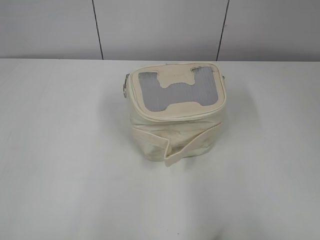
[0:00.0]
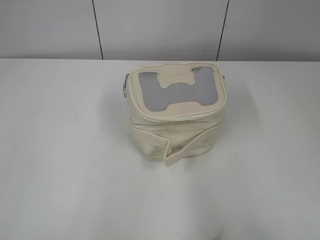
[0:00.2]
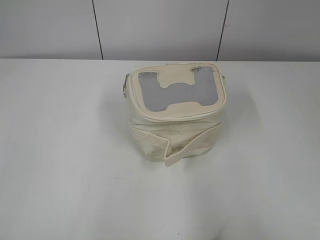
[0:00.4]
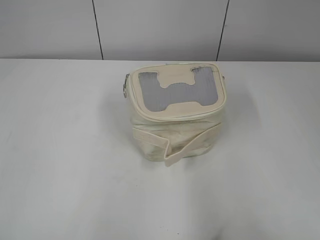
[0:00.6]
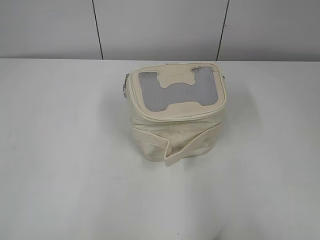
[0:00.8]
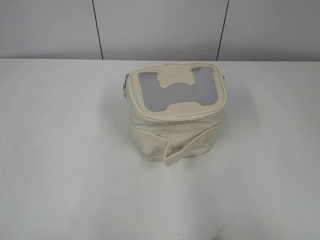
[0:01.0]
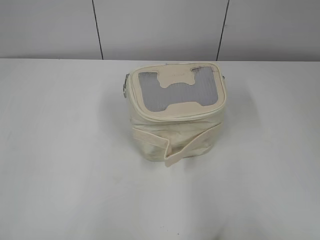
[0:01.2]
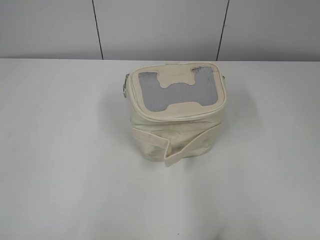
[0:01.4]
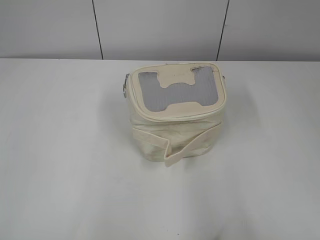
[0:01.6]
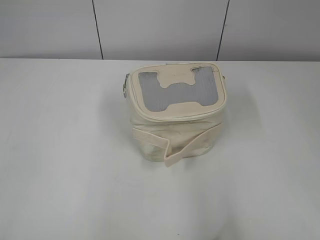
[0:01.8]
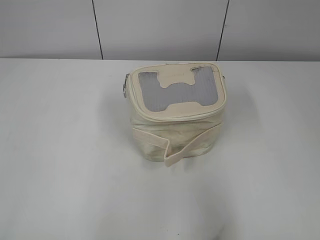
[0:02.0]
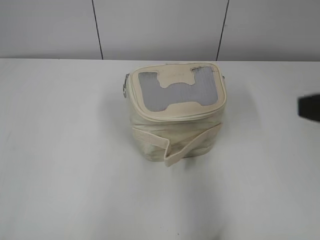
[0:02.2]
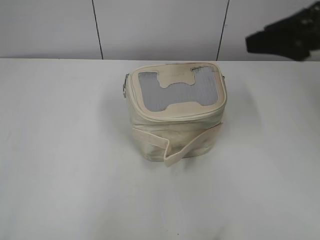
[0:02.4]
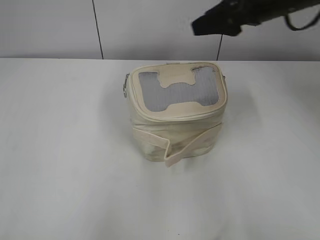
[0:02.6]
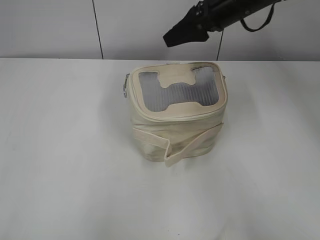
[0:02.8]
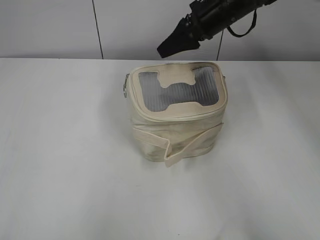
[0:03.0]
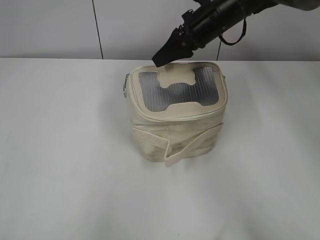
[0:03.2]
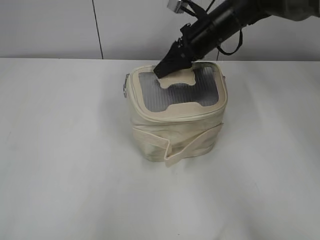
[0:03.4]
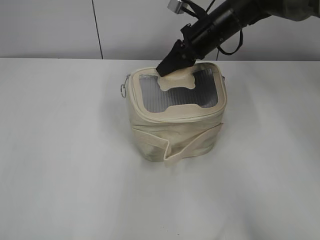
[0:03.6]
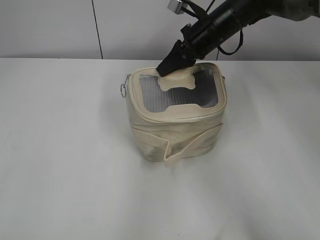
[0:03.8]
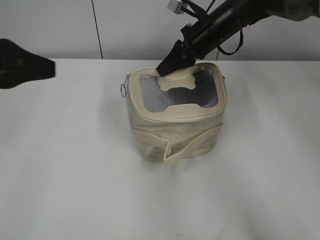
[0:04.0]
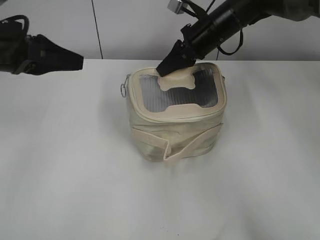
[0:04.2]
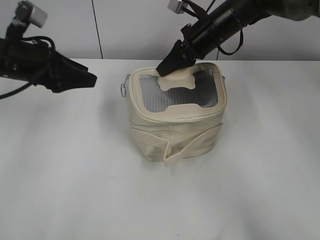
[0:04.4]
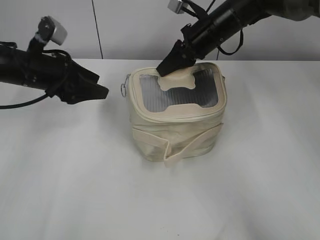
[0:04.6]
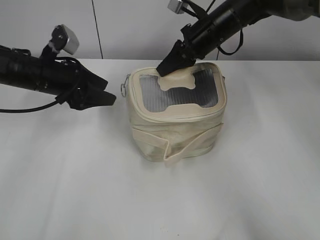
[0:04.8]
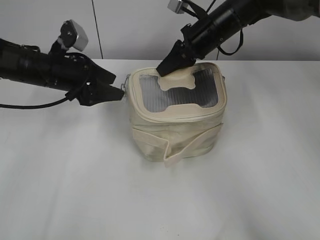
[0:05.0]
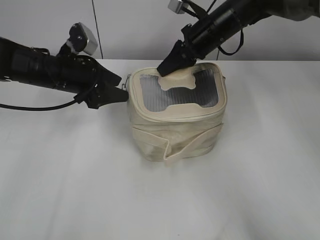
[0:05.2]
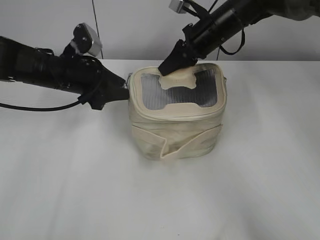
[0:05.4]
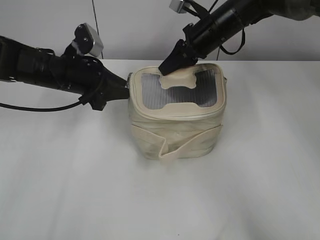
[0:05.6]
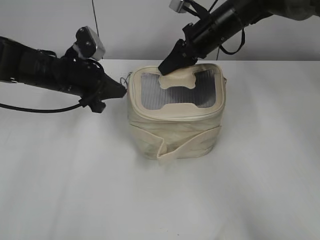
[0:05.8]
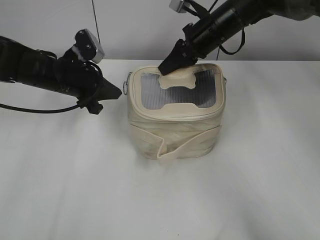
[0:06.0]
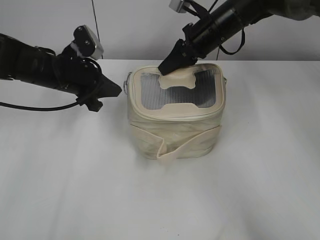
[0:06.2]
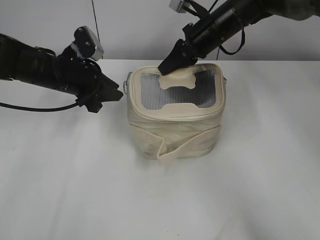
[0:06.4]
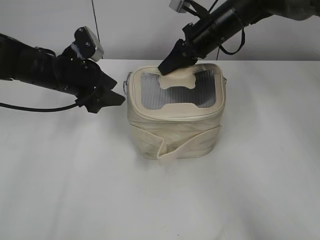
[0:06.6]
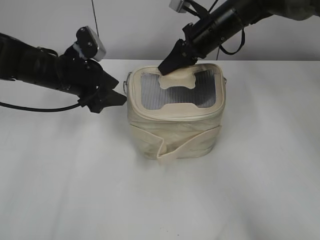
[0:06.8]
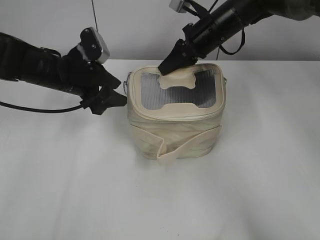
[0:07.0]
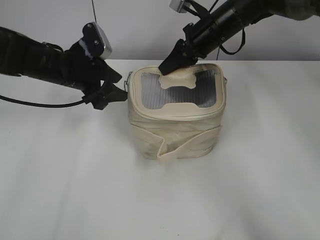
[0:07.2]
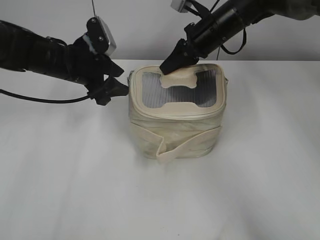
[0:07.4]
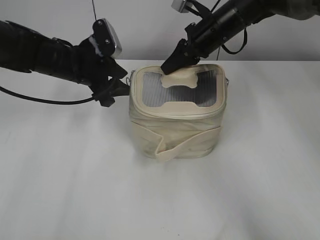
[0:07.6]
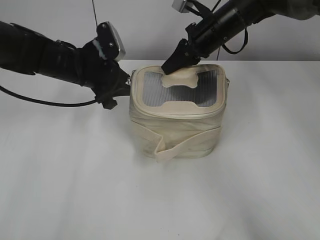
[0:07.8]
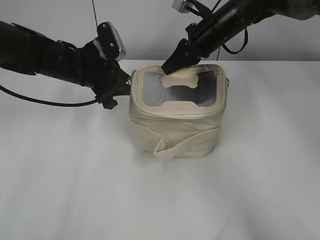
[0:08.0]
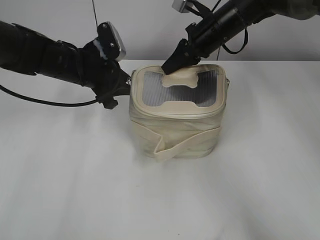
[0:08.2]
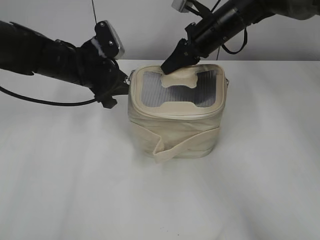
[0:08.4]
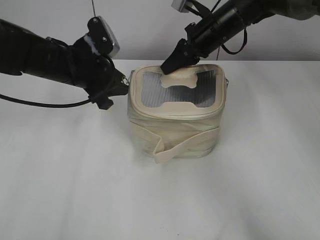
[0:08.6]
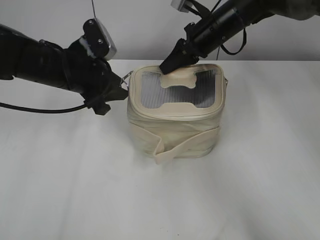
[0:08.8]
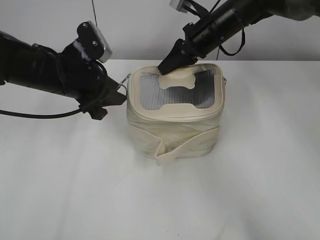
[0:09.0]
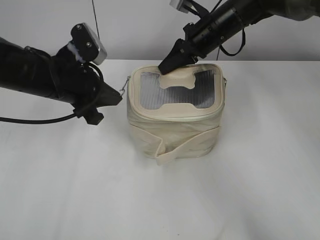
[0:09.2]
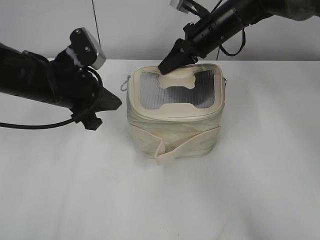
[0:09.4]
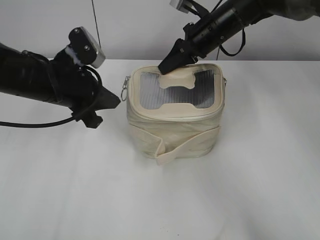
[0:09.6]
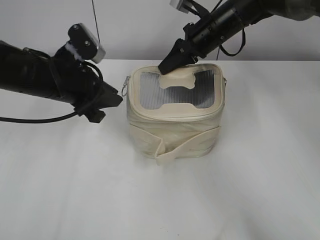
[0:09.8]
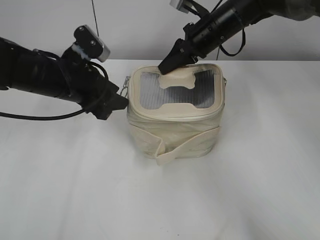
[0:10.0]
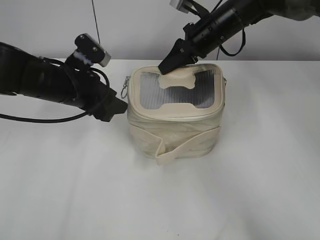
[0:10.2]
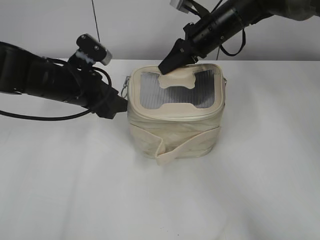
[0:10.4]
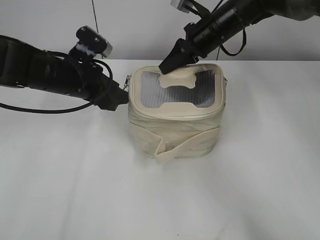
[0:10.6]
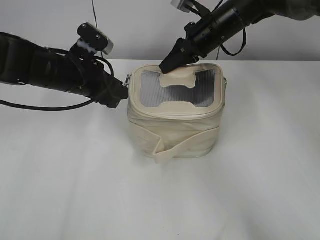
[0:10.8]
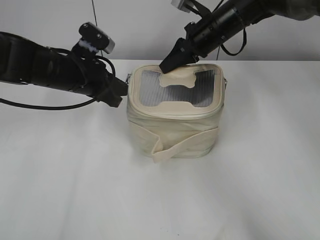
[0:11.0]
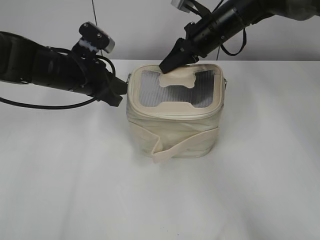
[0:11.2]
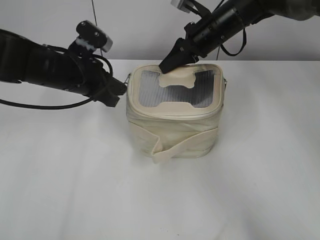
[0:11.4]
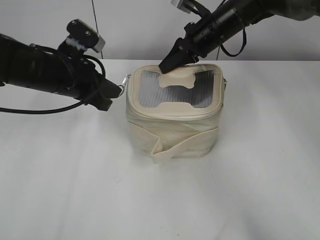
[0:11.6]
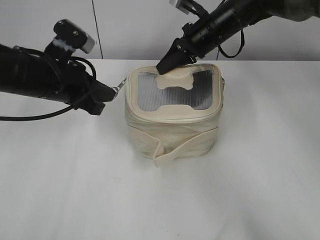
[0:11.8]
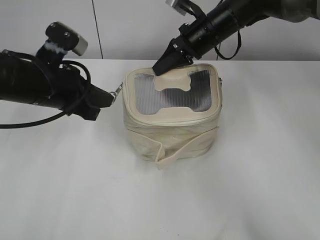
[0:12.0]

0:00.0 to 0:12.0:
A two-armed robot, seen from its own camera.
0:01.6 to 0:03.0: The right gripper travels forward and to the left by about 50 cm.
0:03.0 to 0:04.4: The right gripper shifts approximately 5 cm downward, and closes, while the left gripper heads forward, covering approximately 35 cm.
0:04.4 to 0:06.0: The left gripper shifts approximately 10 cm downward and to the right, and closes.
0:06.0 to 0:07.6: The left gripper opens its fingers.
0:07.6 to 0:09.0: The left gripper shifts about 5 cm backward.
0:09.0 to 0:10.4: The left gripper closes, then opens again.
0:10.4 to 0:12.0: The left gripper moves roughly 5 cm, and closes up.

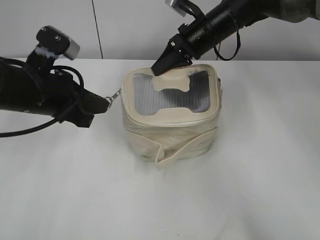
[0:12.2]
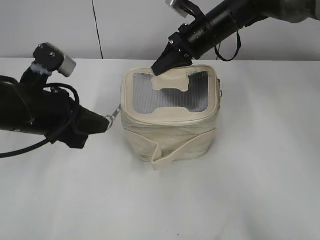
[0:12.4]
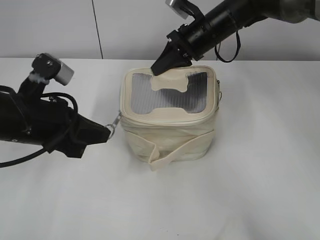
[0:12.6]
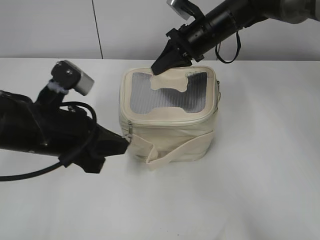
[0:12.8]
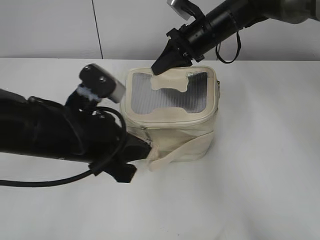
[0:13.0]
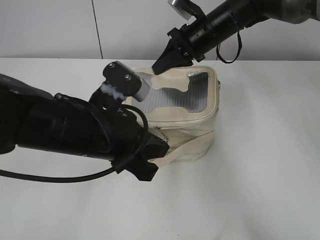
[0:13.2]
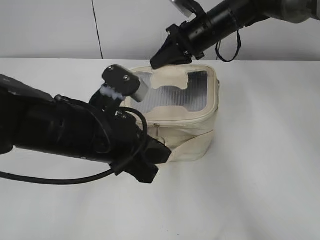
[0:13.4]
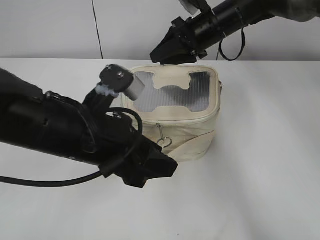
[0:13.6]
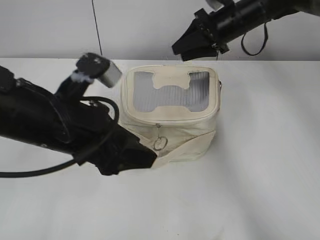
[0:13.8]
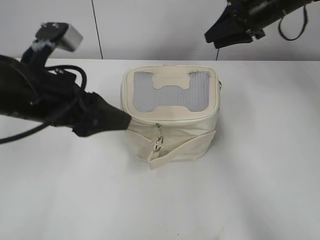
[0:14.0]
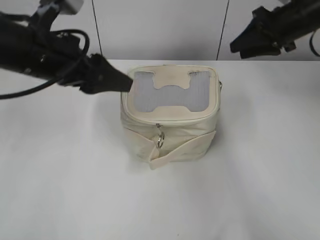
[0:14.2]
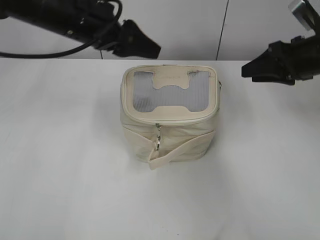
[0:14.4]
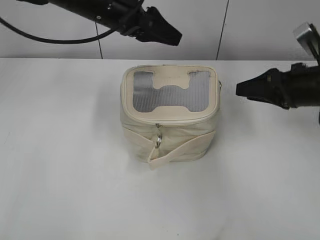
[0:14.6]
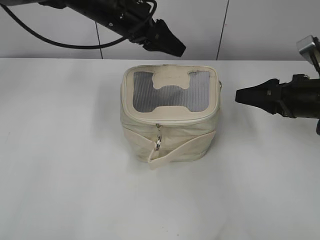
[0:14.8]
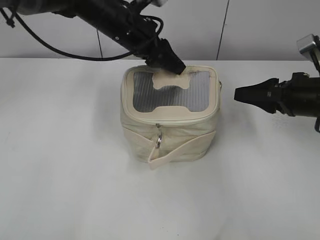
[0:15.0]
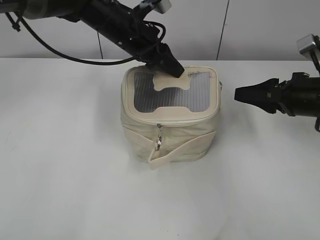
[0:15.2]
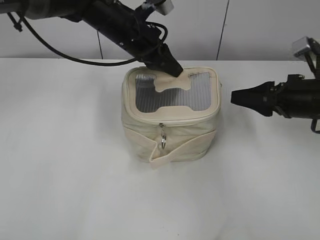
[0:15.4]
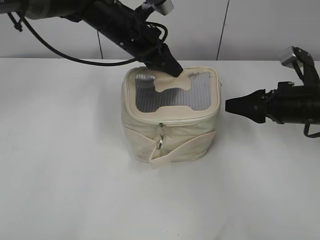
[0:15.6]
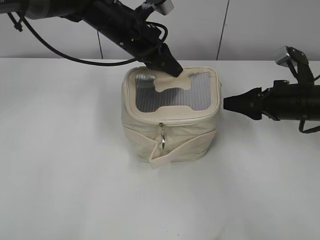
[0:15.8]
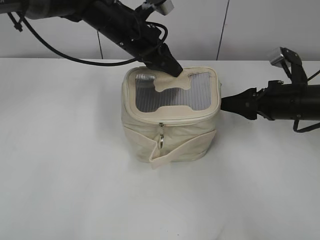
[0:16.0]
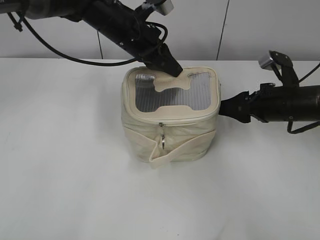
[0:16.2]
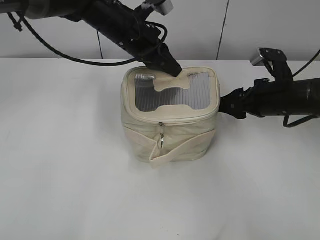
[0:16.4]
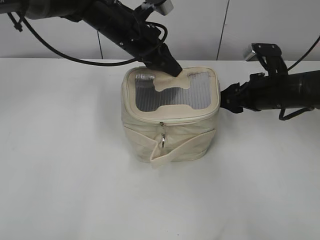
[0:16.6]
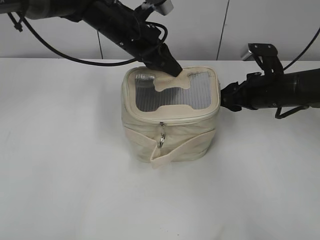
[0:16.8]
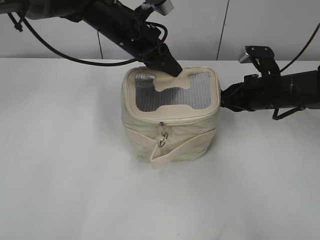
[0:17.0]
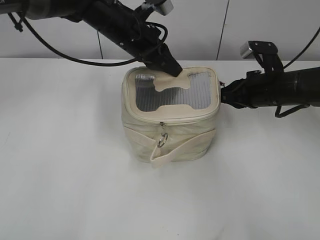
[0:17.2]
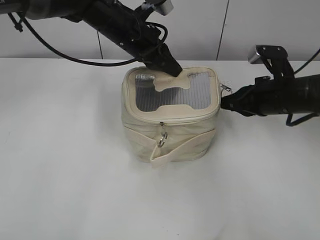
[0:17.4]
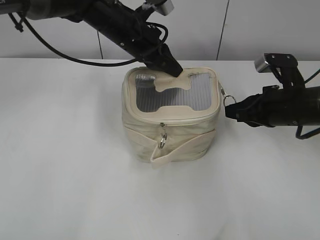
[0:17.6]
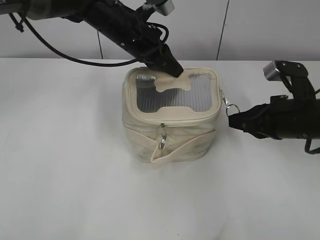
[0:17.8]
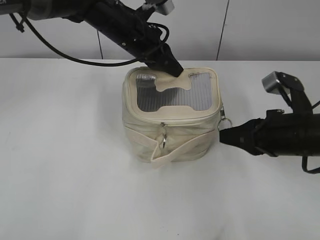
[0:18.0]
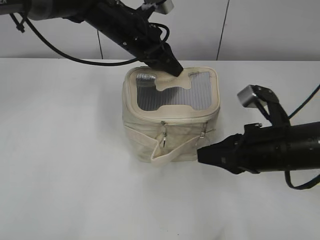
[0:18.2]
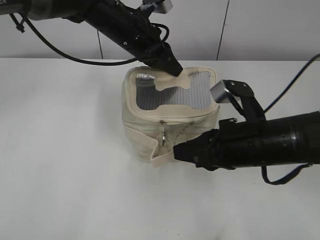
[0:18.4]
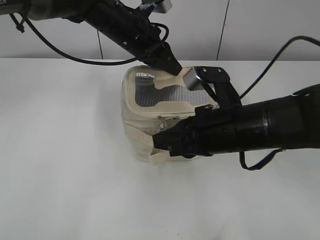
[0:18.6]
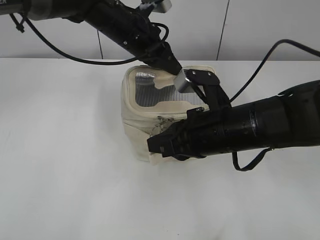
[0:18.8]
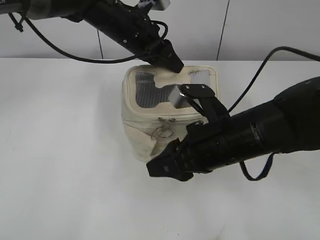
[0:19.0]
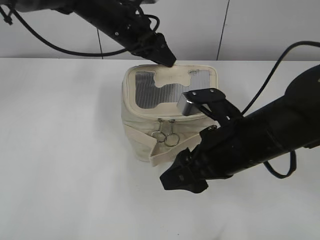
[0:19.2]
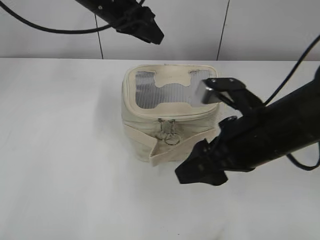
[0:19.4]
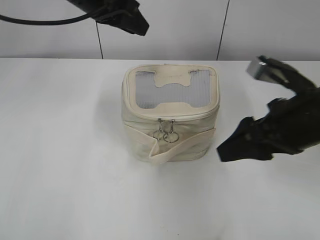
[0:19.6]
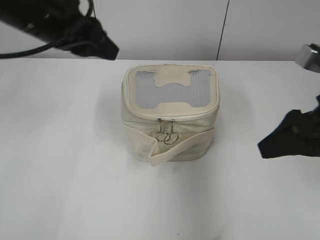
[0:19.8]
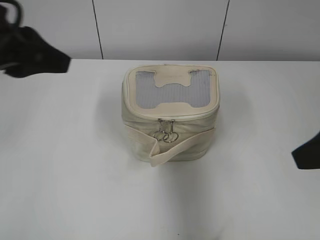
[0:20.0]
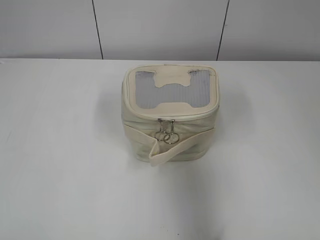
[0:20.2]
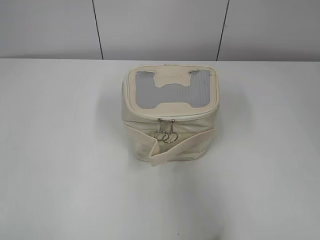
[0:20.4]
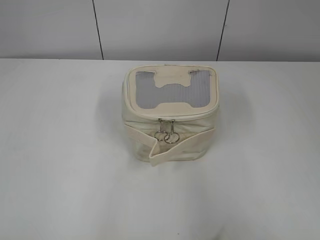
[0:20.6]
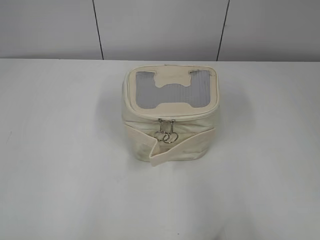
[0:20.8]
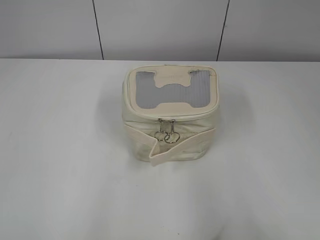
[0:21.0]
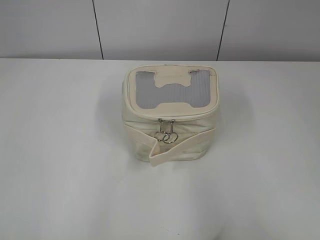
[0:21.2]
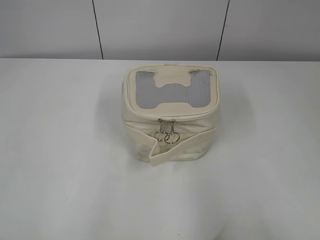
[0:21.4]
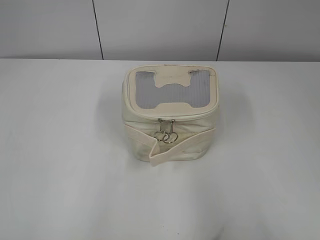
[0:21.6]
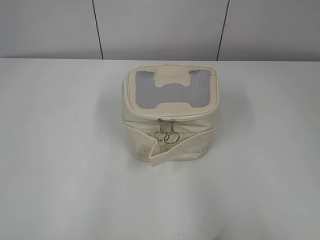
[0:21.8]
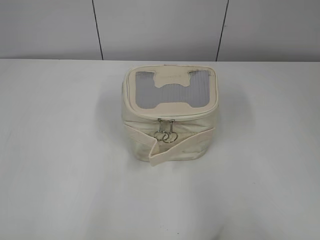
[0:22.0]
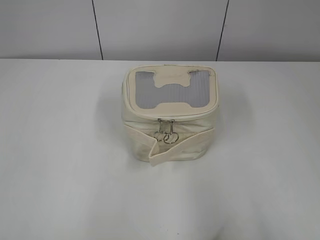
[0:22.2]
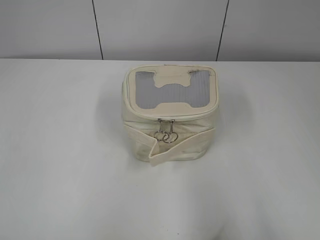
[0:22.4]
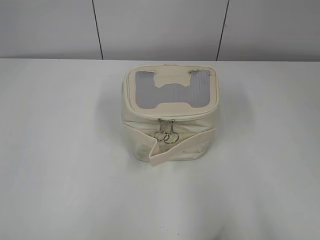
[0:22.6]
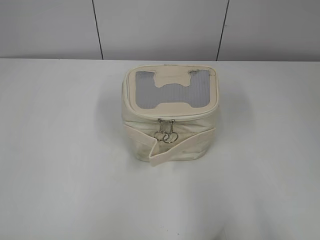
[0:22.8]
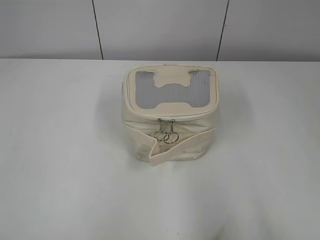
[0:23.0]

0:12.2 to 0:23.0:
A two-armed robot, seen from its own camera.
Step, 0:13.8 to 0:18.8: Zip up the bag with your right hand.
Step, 0:19.0 to 0:19.2: Hold the bag with your left hand.
0:12.2 to 0:13.8: The right gripper opens up. Meanwhile the left gripper is displaced backward and to the right by some 10 cm, and opens its fingers.
0:13.8 to 0:15.2: The left gripper travels forward by about 25 cm. Meanwhile the right gripper moves backward and to the right, approximately 20 cm.
0:15.2 to 0:16.8: The left gripper closes its fingers. The right gripper shifts about 5 cm forward.
0:16.8 to 0:18.4: The right gripper is displaced backward and to the left by about 15 cm, and closes.
0:18.4 to 0:20.0: The left gripper travels backward, to the left and upward by some 25 cm, and opens up, while the right gripper heads upward and to the right, covering about 15 cm, and opens.
0:20.0 to 0:21.4: The right gripper goes roughly 20 cm backward, while the left gripper goes roughly 30 cm backward and to the left.
